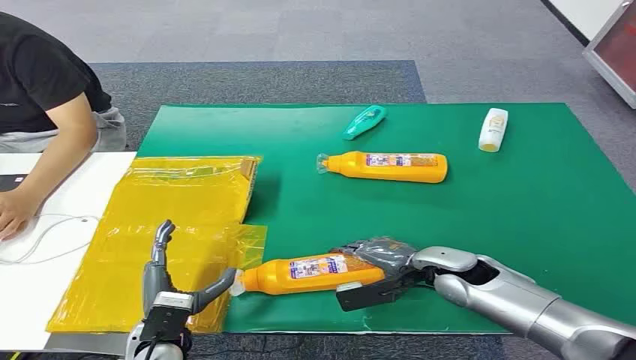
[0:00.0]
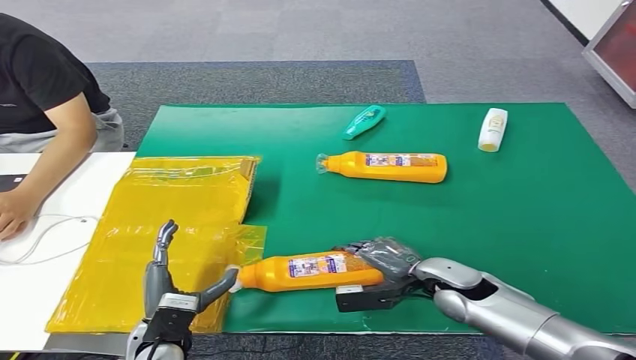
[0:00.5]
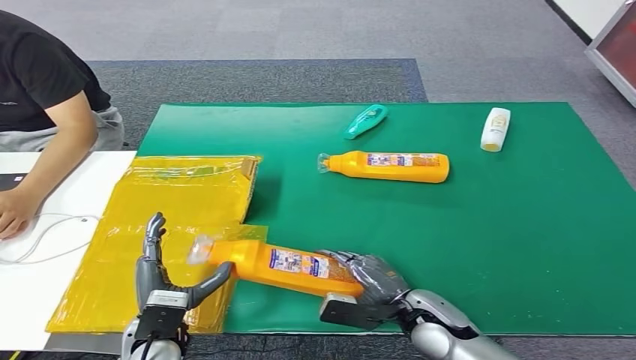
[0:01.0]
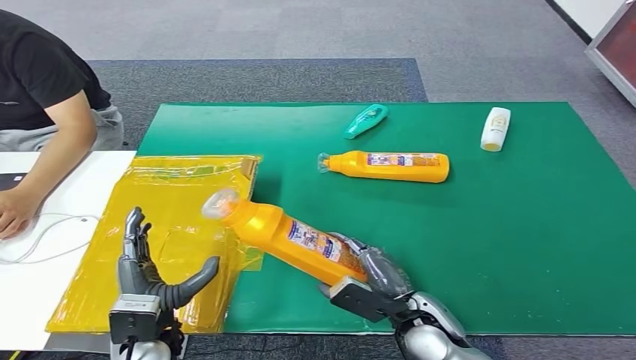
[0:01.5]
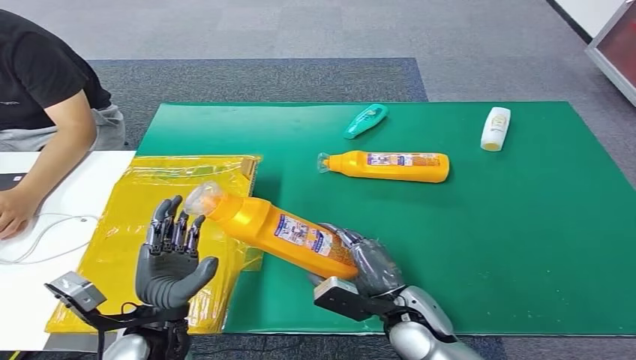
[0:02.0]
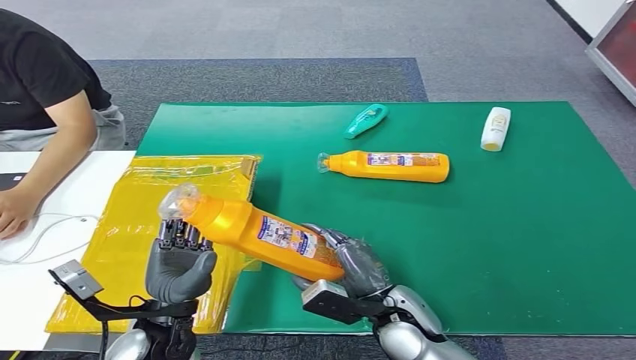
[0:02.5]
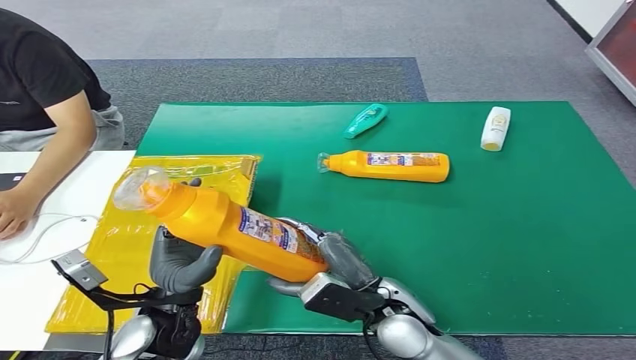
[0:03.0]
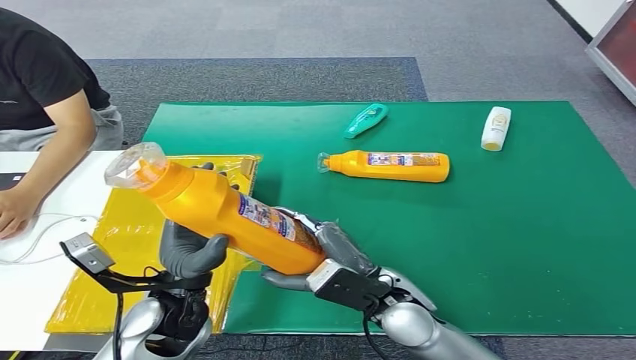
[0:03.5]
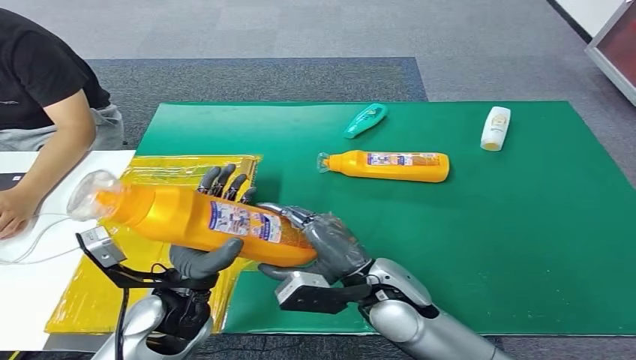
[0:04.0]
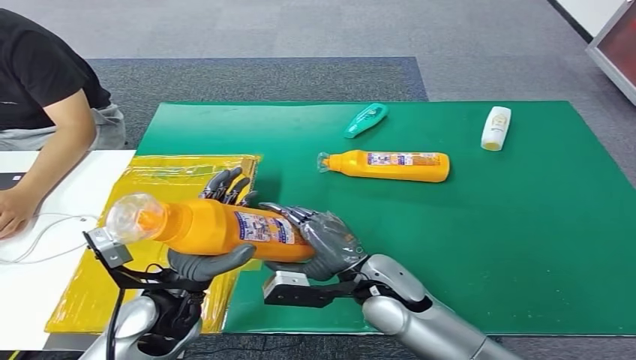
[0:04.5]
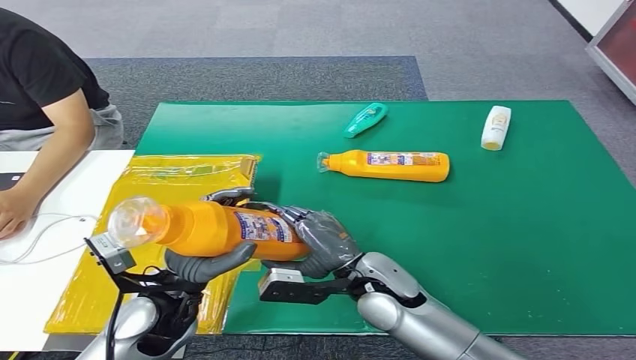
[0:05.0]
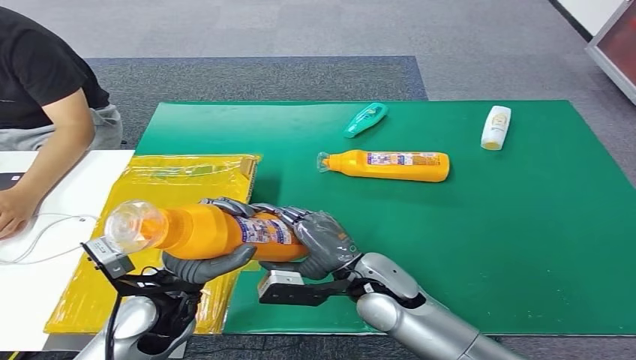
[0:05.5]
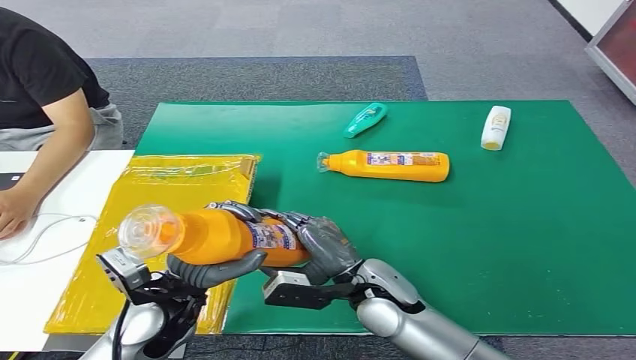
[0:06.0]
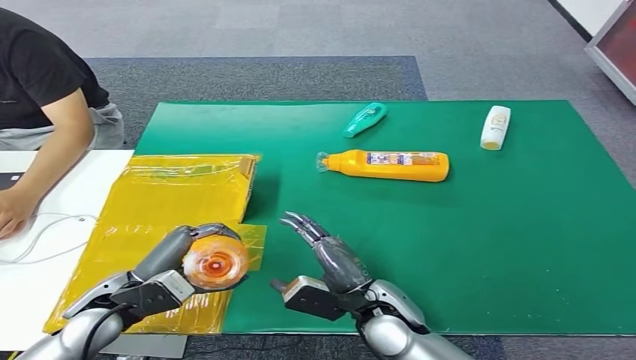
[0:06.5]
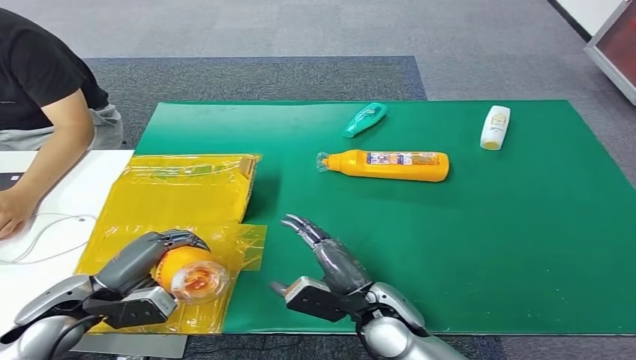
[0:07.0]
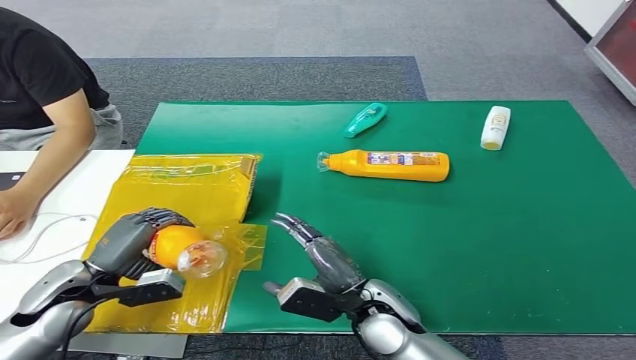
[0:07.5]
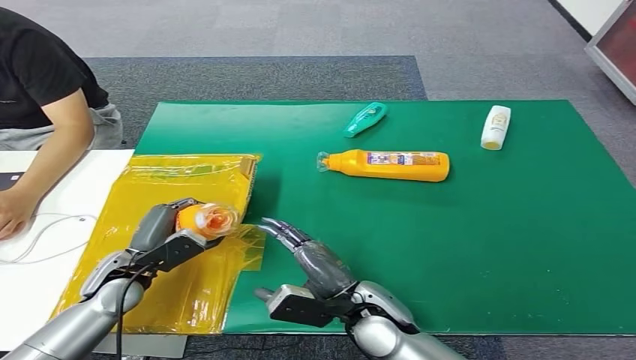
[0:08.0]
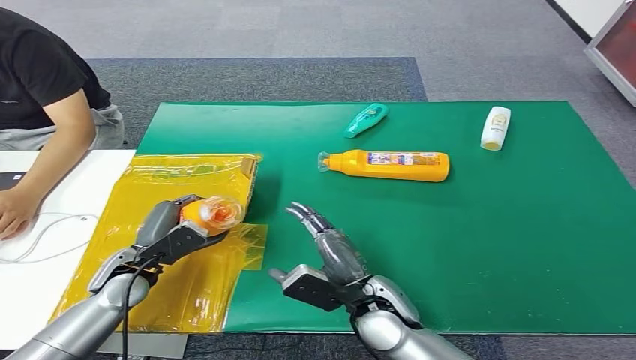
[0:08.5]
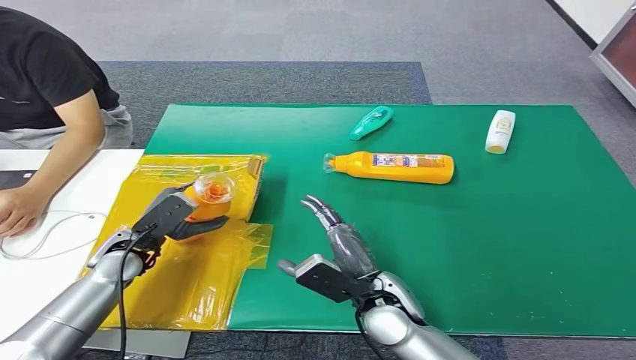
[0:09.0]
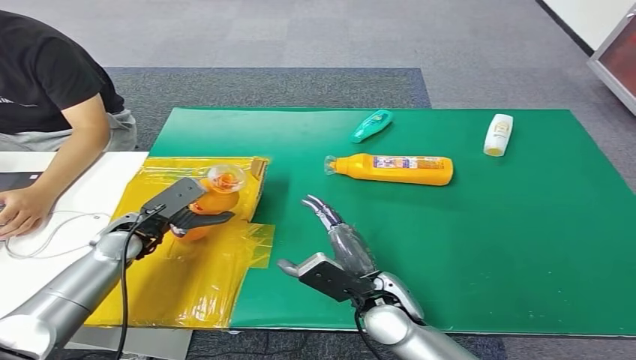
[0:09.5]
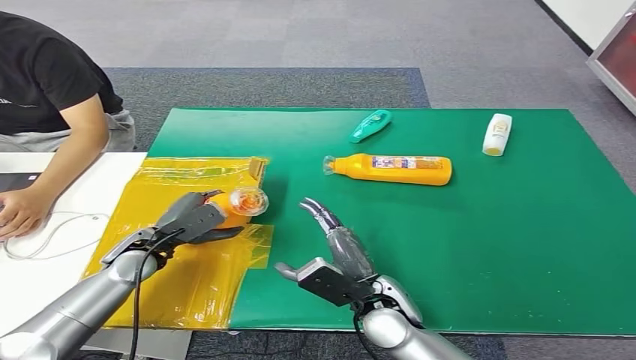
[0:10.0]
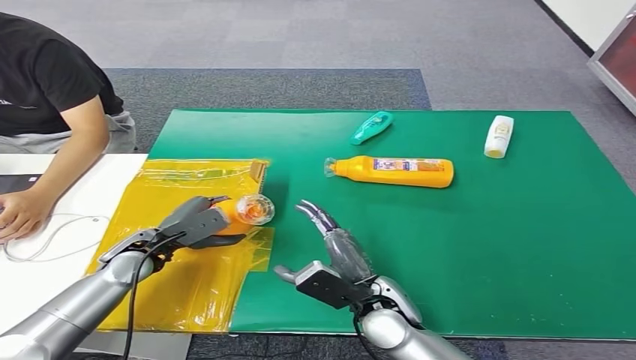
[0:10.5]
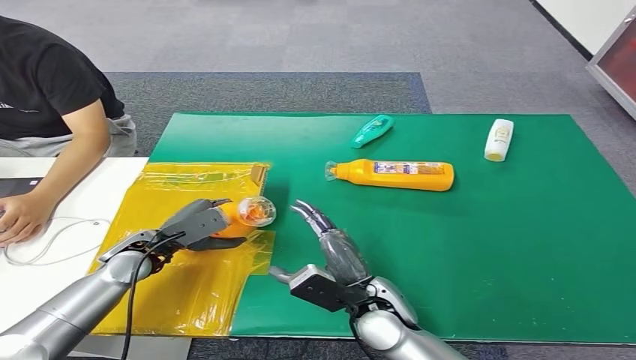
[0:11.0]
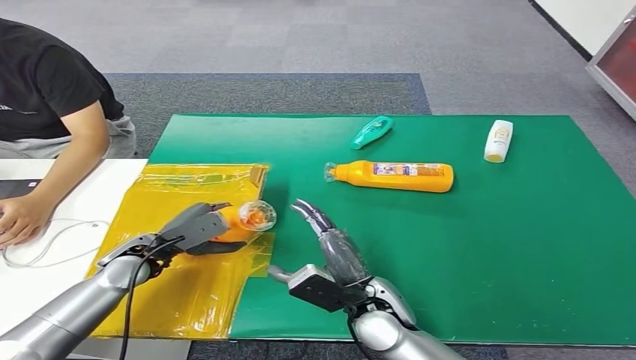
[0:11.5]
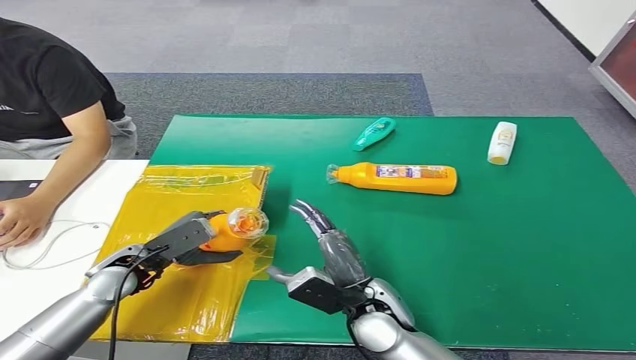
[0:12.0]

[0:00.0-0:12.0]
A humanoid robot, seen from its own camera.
Step, 0:00.0 to 0:02.5: Pick up the bottle from the table.
0:02.0 to 0:04.0: The left hand travels forward by some 5 cm. The right hand travels upward by roughly 10 cm.
0:06.0 to 0:08.0: The left hand travels to the left, downward and forward by some 15 cm.

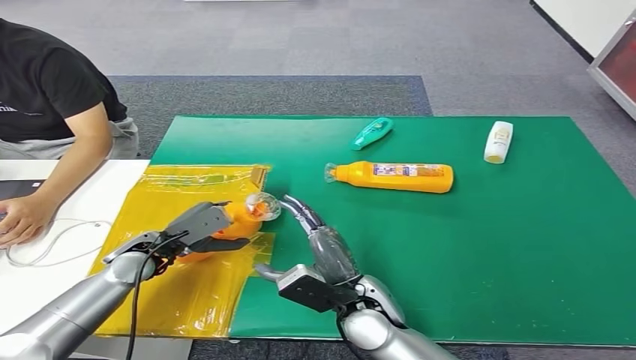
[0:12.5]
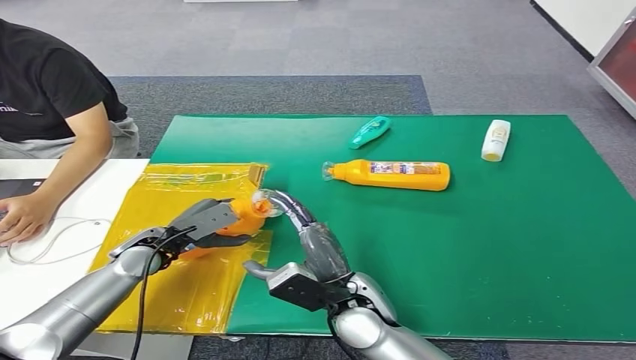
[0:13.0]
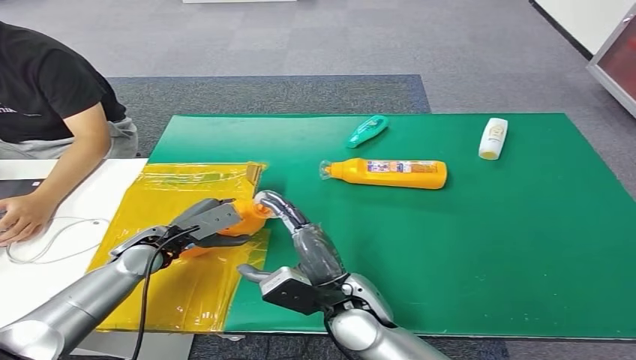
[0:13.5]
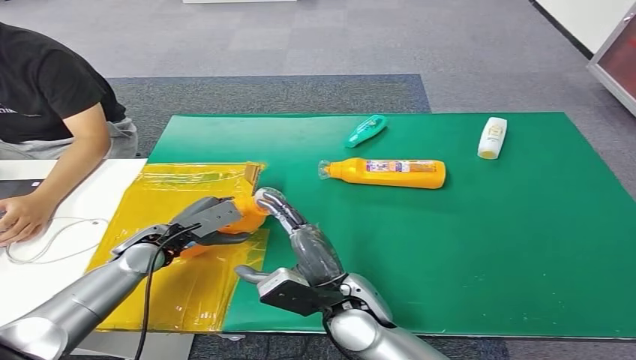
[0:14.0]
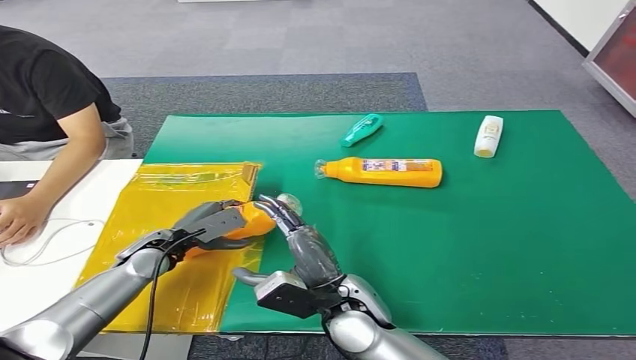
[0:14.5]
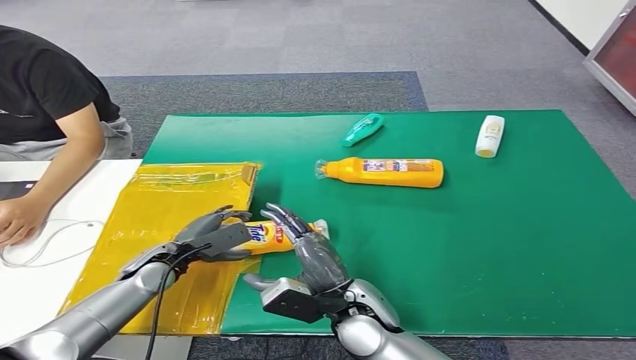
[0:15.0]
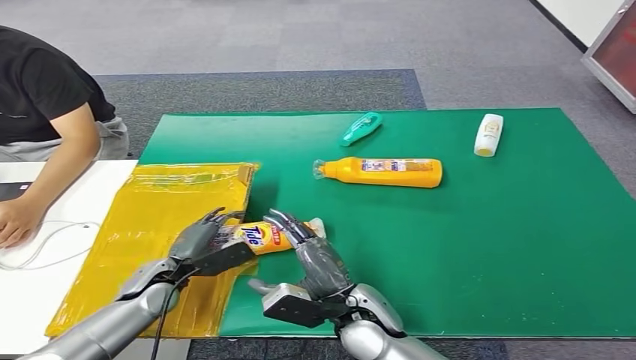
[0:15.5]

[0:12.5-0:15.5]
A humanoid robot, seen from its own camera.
Step, 0:12.5 to 0:15.5: Turn the bottle to the front side.
0:12.5 to 0:14.0: The hands move only a little.
0:14.0 to 0:15.5: The left hand goes roughly 5 cm backward and downward.

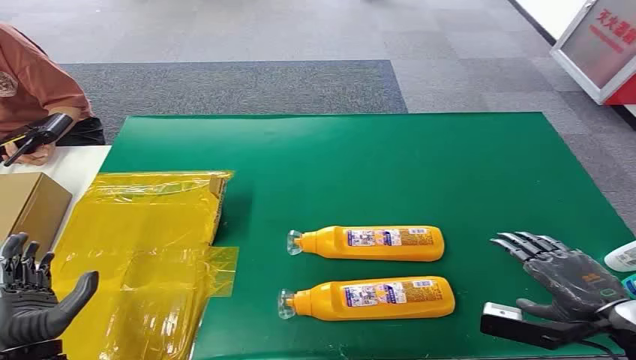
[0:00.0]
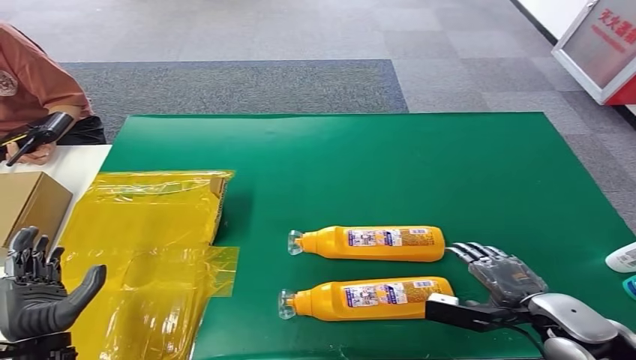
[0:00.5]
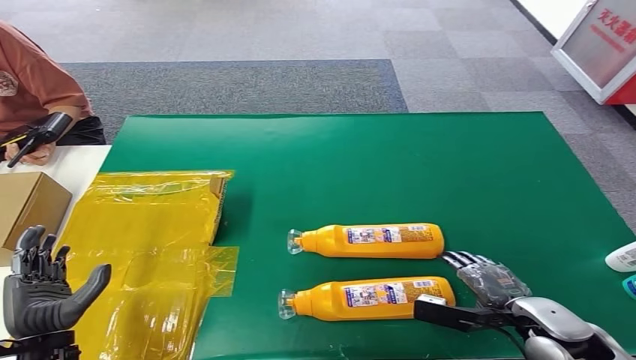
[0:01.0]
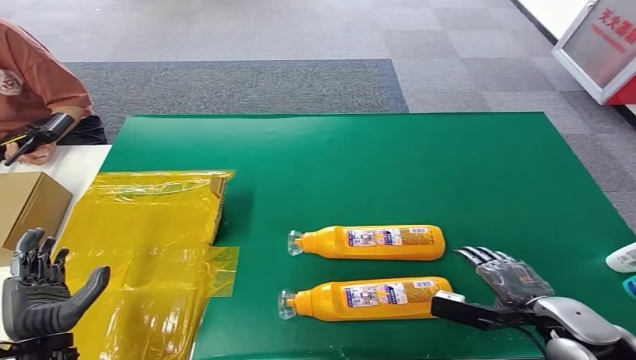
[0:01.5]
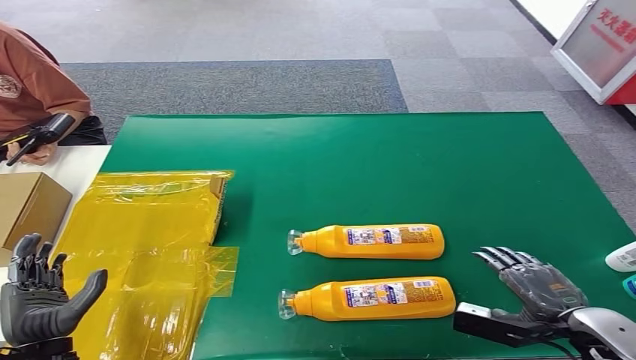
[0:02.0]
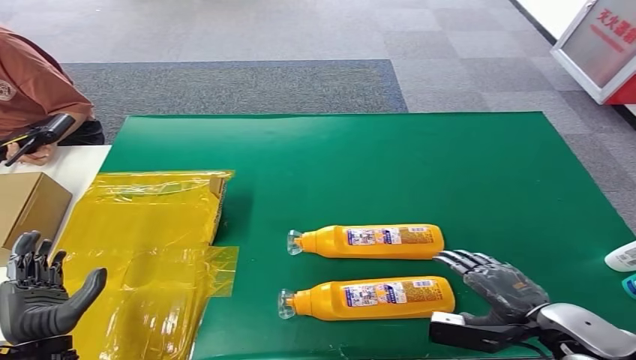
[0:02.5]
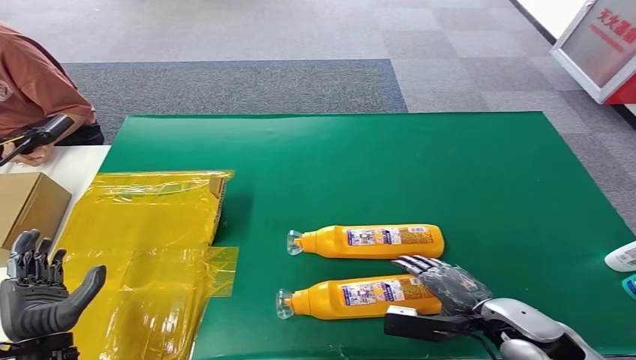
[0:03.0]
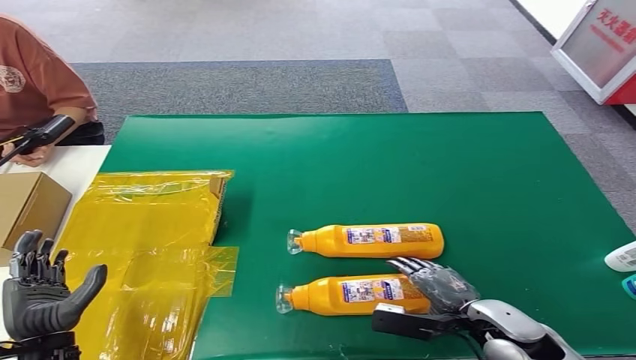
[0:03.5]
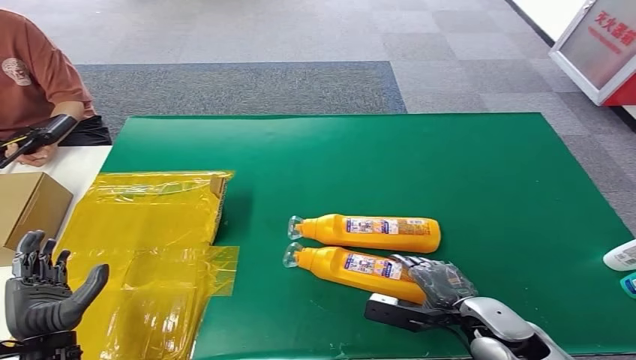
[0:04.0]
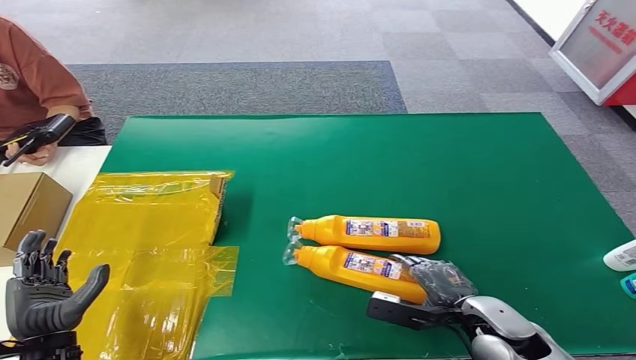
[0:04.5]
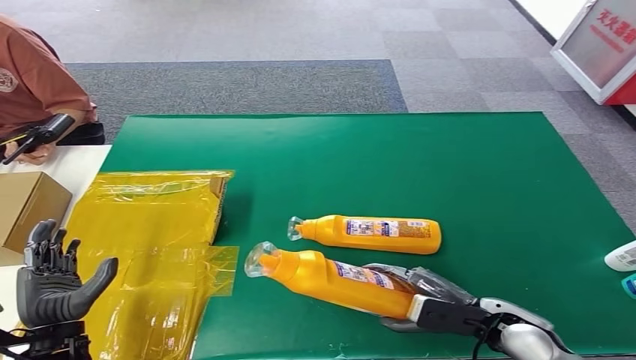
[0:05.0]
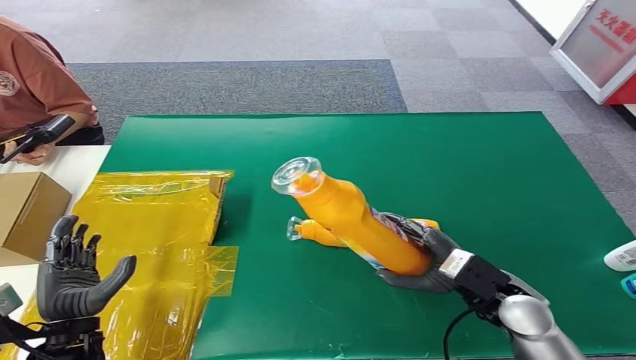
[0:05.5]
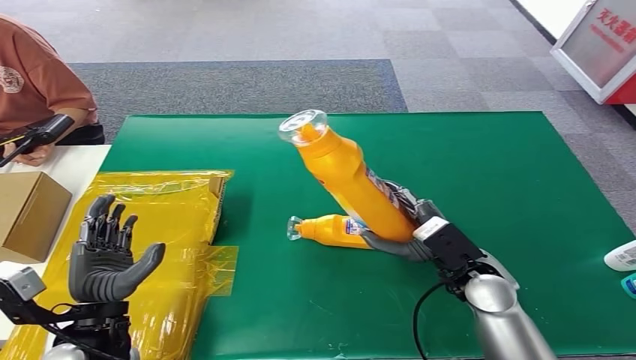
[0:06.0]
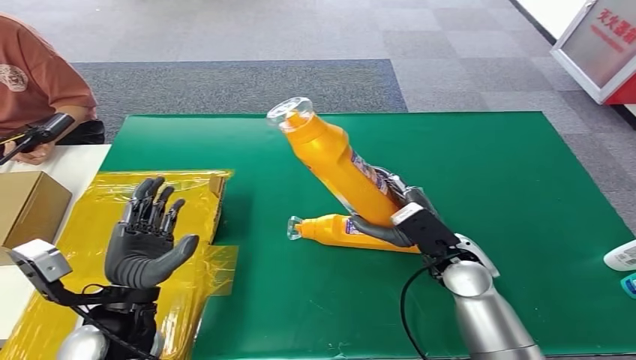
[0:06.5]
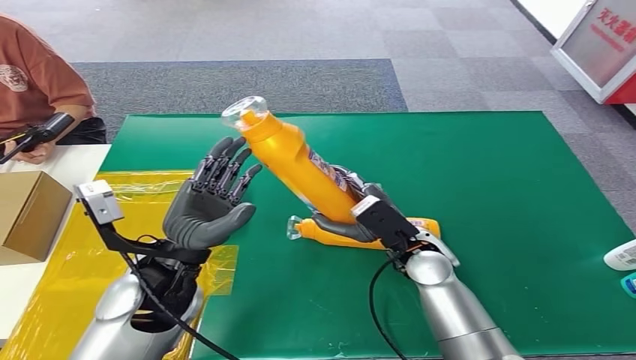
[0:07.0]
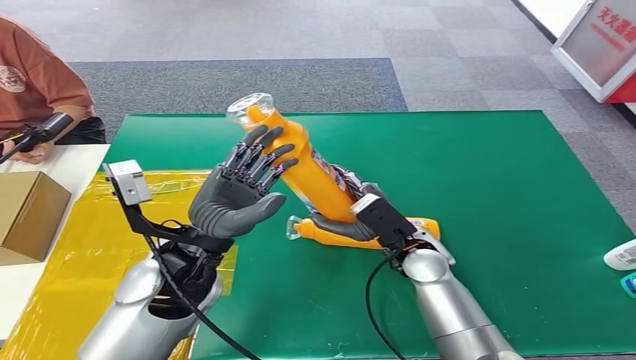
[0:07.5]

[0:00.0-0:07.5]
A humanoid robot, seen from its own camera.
0:02.0 to 0:04.0: The right hand travels to the left and downward by roughly 10 cm.
0:04.0 to 0:05.5: The right hand shifts about 10 cm forward and upward.
